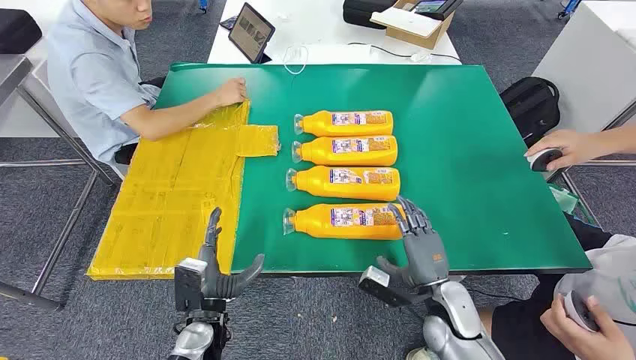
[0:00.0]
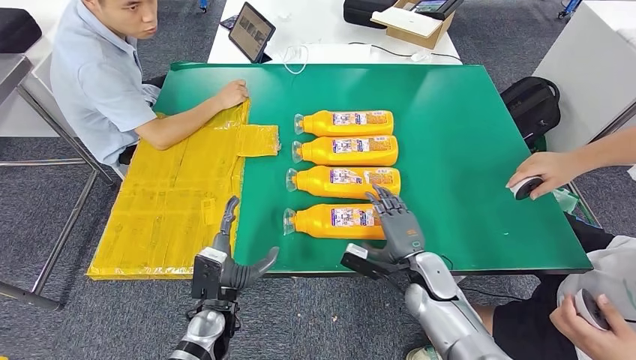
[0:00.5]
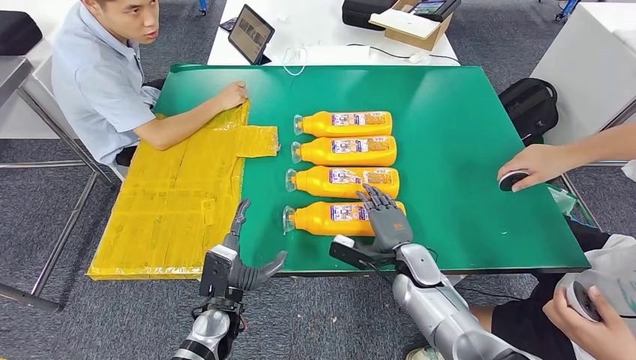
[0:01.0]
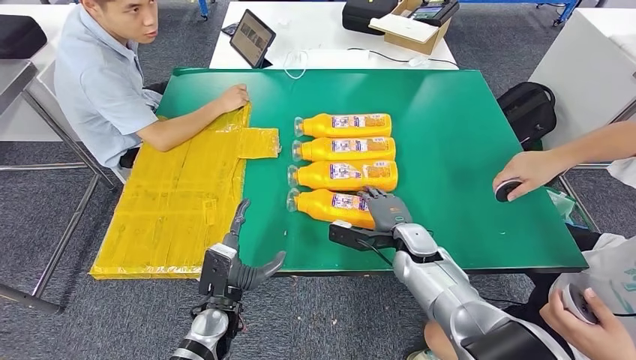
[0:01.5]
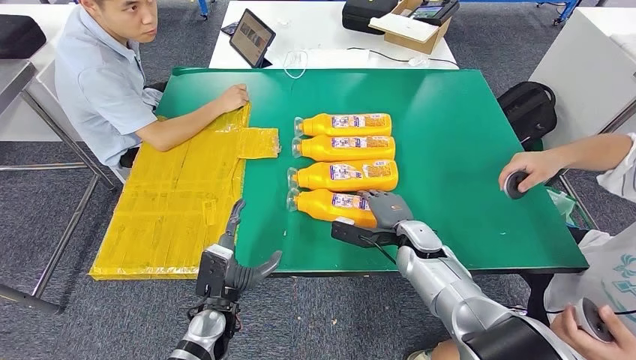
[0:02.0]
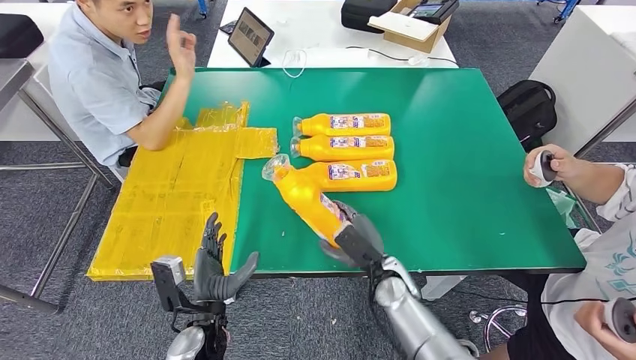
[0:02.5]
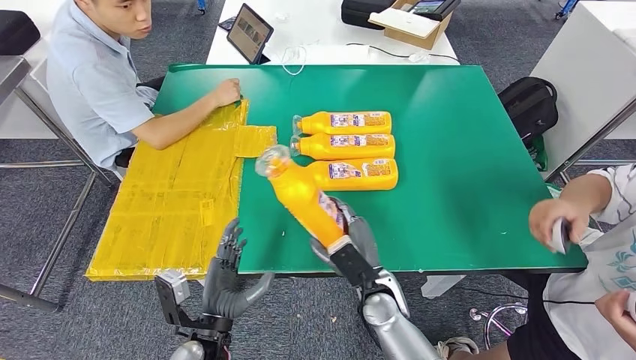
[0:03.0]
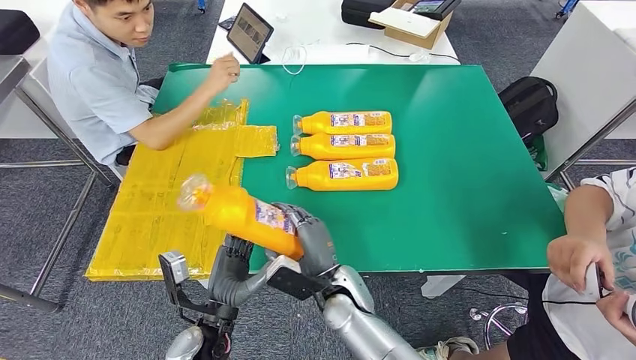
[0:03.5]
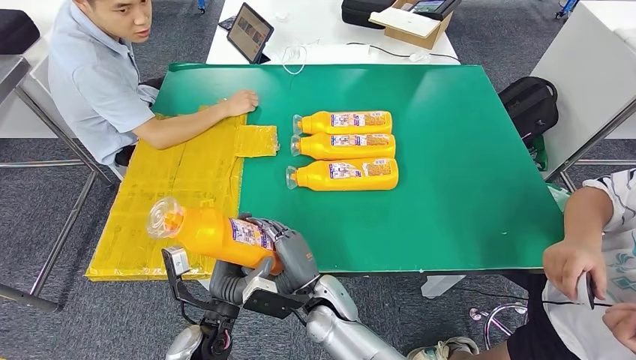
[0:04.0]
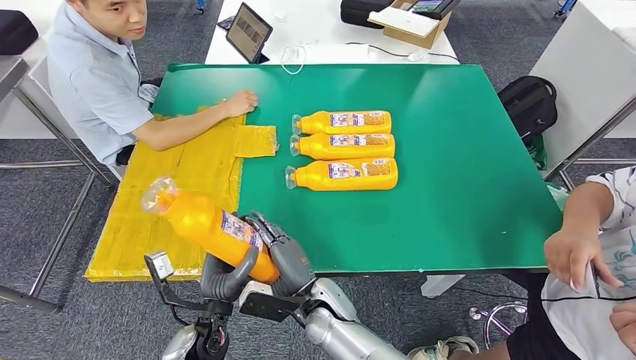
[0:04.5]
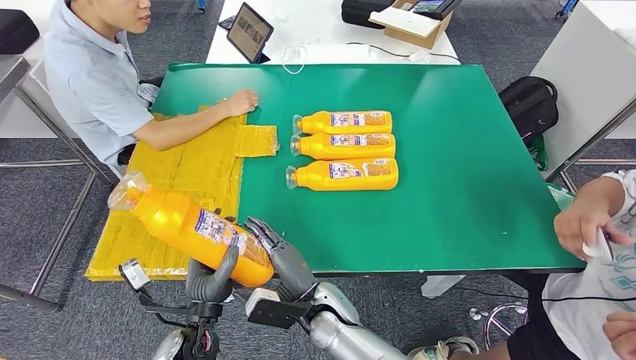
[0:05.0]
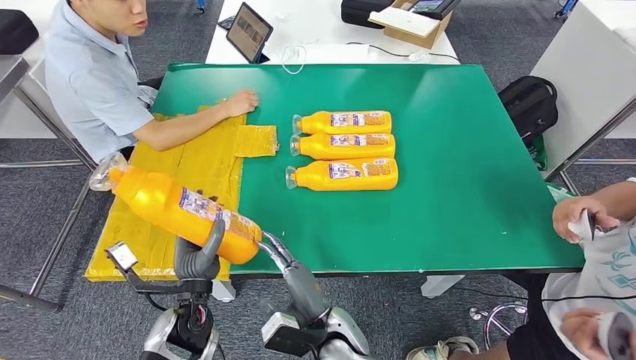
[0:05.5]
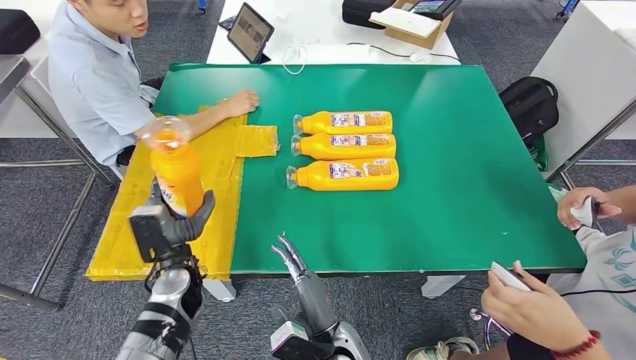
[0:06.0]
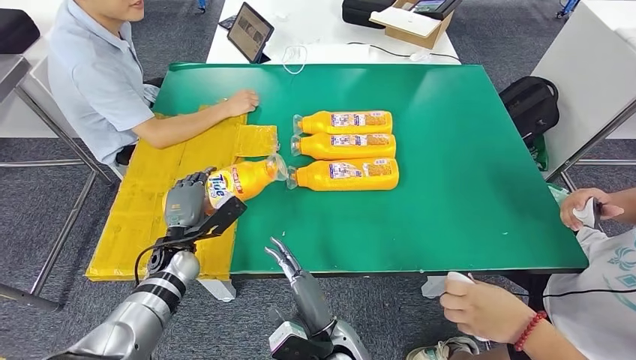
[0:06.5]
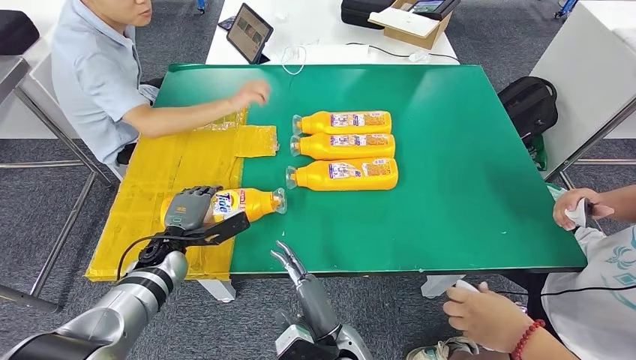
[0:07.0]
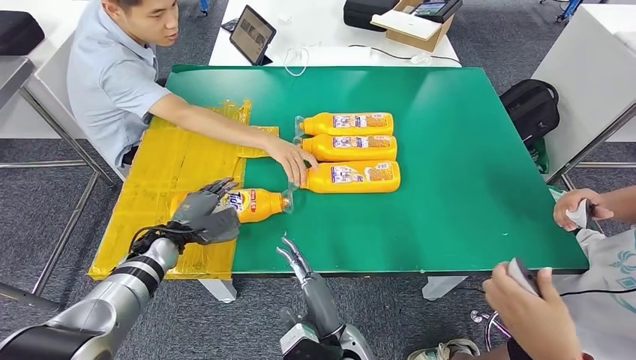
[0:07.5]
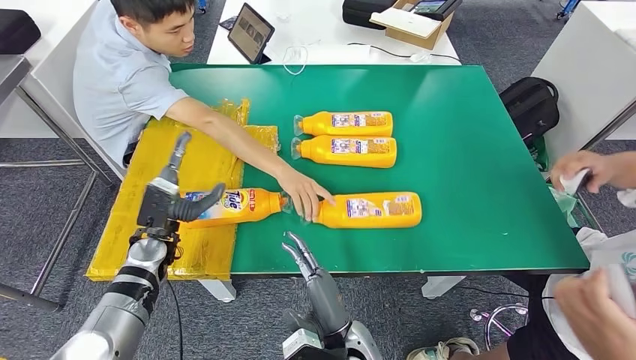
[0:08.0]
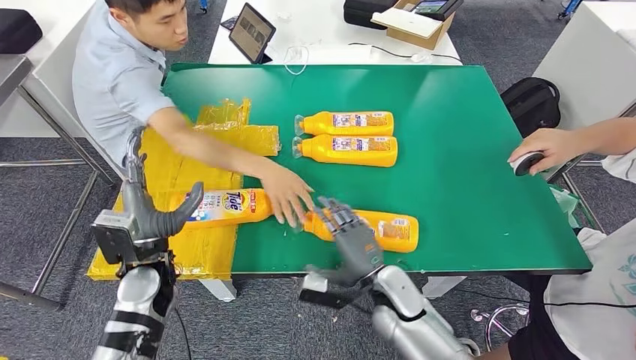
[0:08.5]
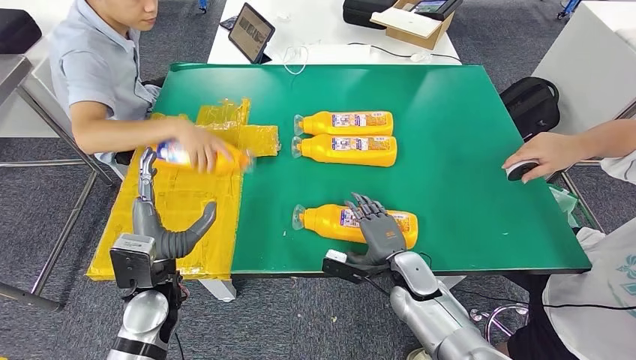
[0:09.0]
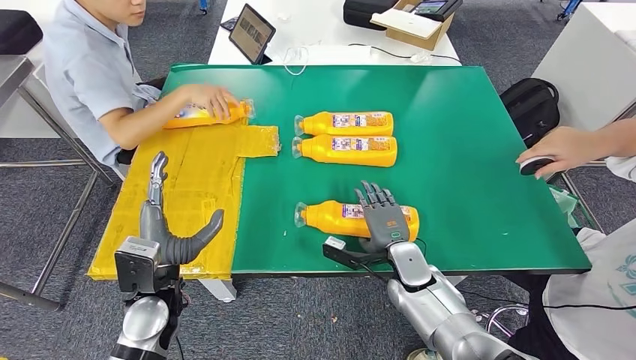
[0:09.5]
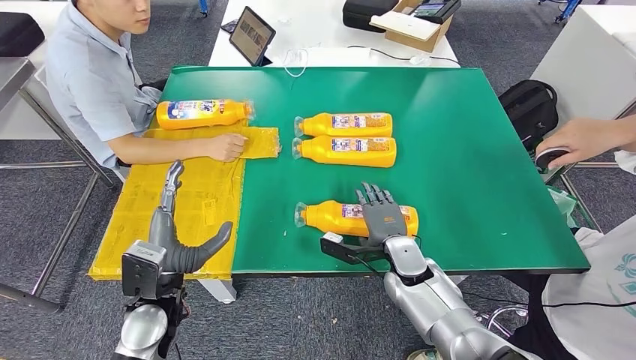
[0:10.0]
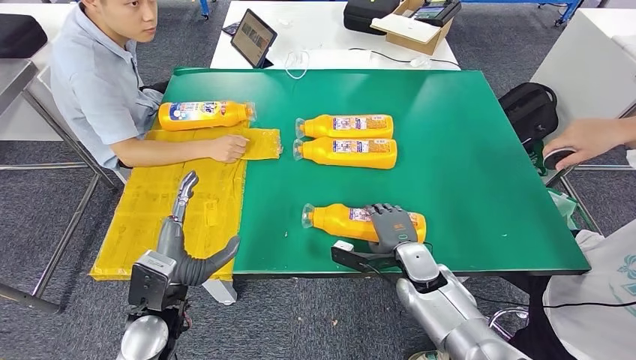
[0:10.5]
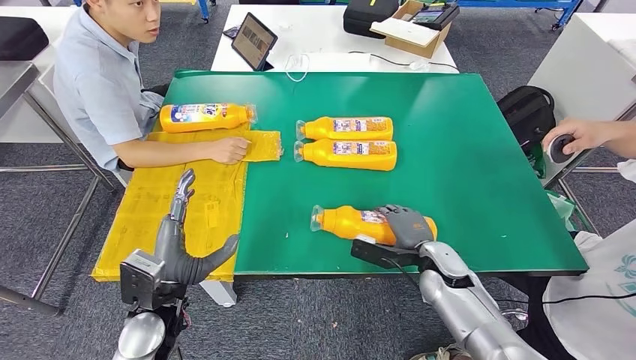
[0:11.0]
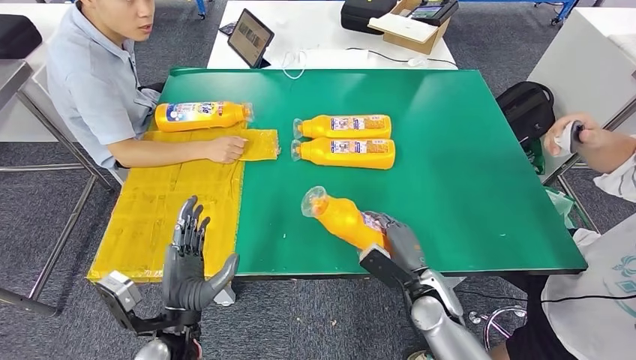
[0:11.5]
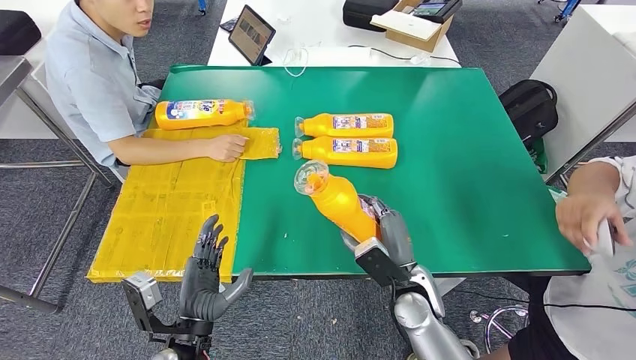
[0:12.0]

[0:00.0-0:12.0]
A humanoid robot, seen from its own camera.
Step, 0:00.0 to 0:04.0: Take the fast-moving consumer goods bottle from the table.
Step, 0:04.5 to 0:08.0: Flip the fast-moving consumer goods bottle to the front side.
0:04.0 to 0:06.0: The left hand travels forward and to the left by about 10 cm. Meanwhile the right hand heads backward, covering approximately 5 cm.
0:10.0 to 0:12.0: The right hand travels backward by approximately 5 cm, while the left hand moves backward and downward, approximately 10 cm.

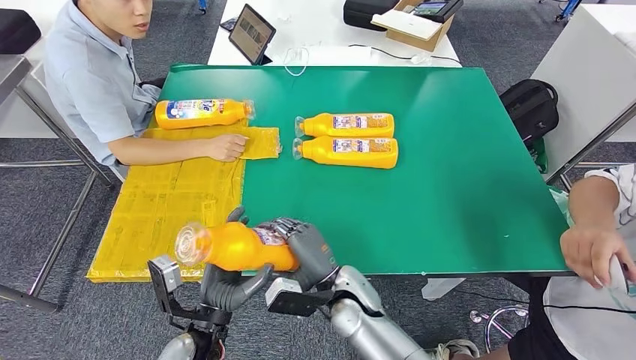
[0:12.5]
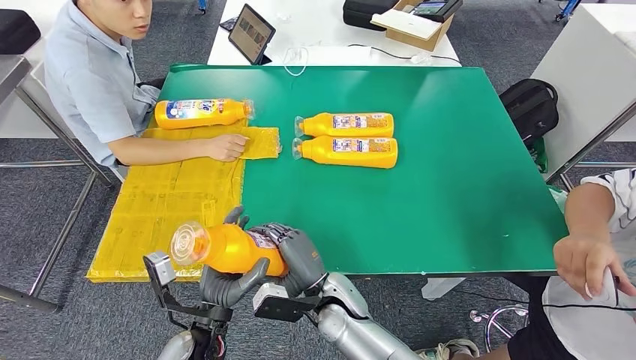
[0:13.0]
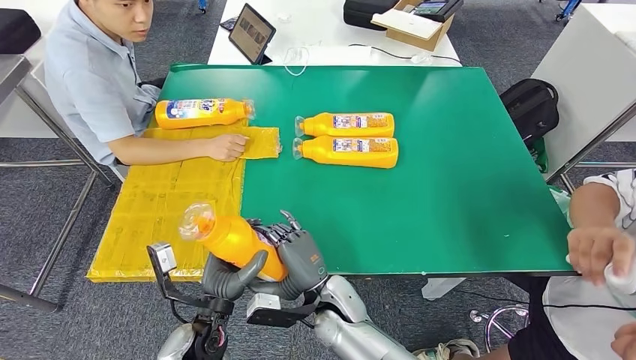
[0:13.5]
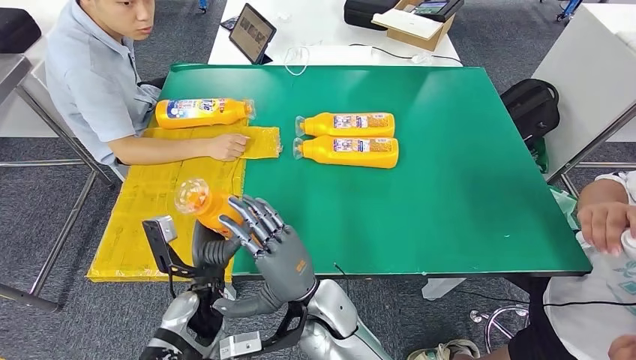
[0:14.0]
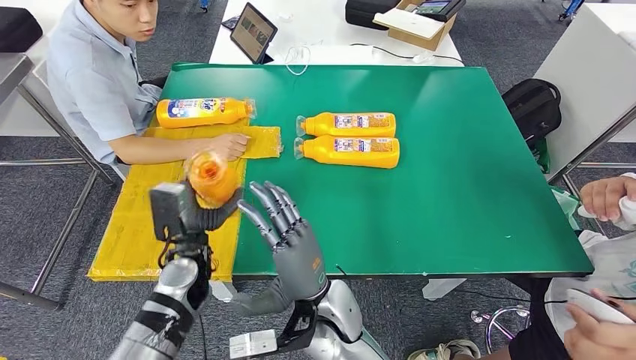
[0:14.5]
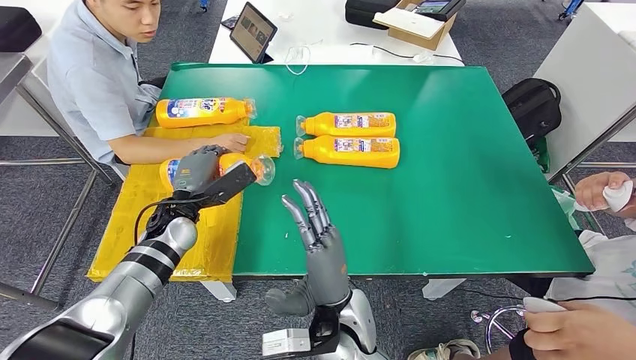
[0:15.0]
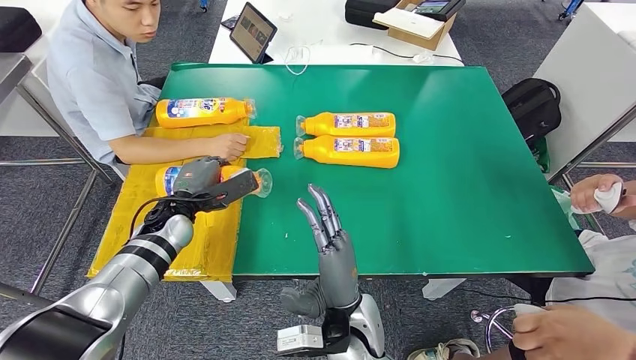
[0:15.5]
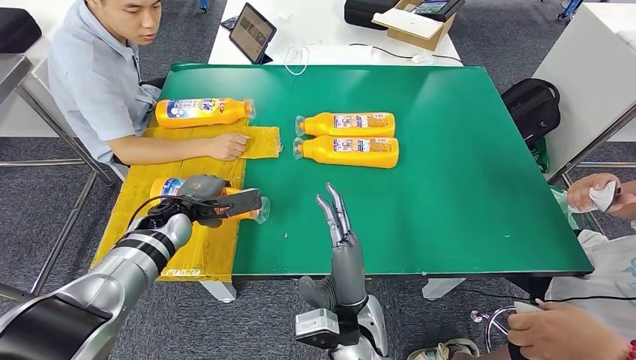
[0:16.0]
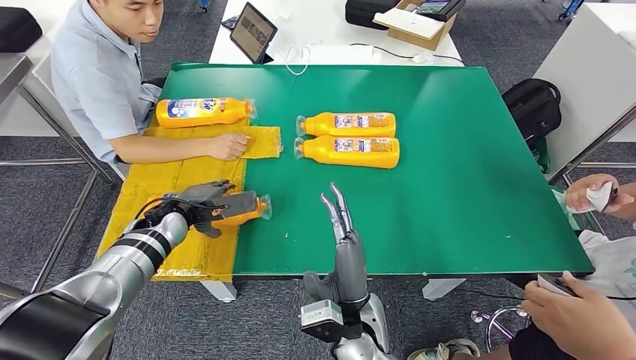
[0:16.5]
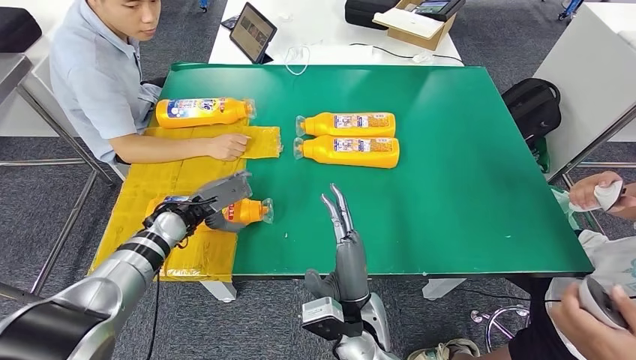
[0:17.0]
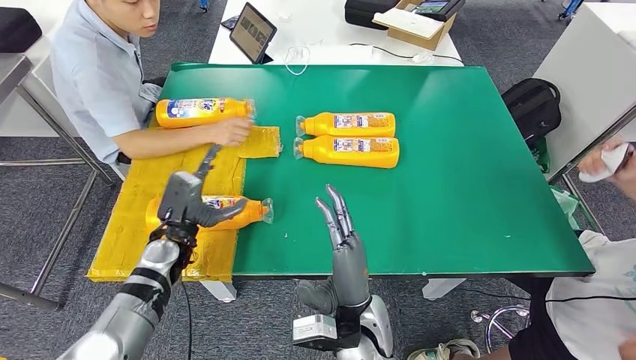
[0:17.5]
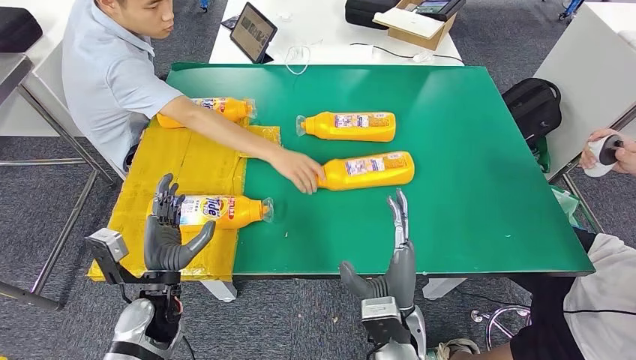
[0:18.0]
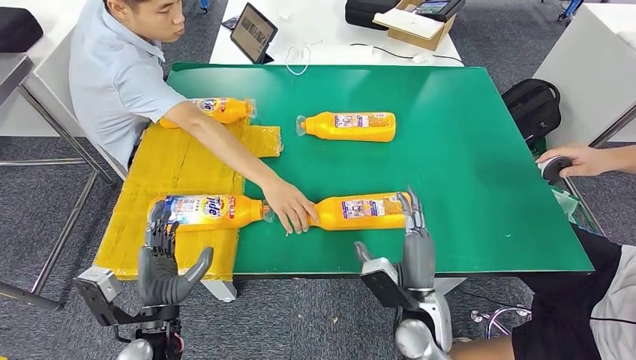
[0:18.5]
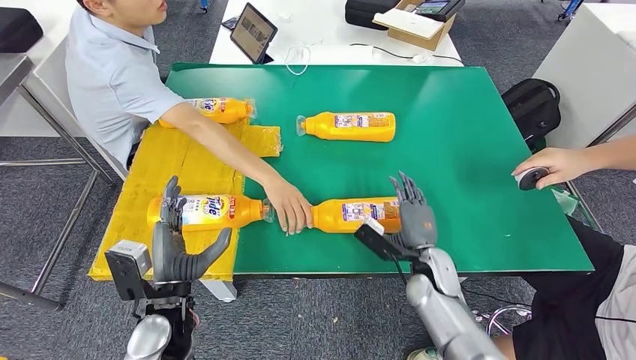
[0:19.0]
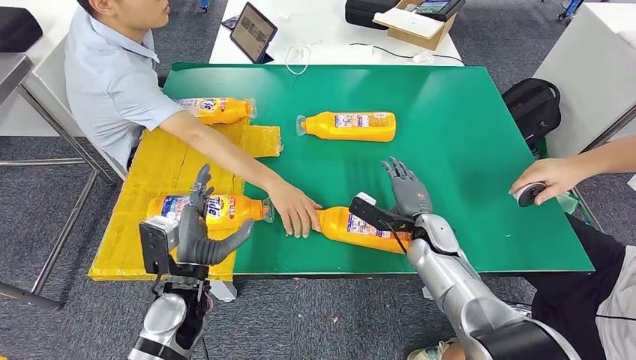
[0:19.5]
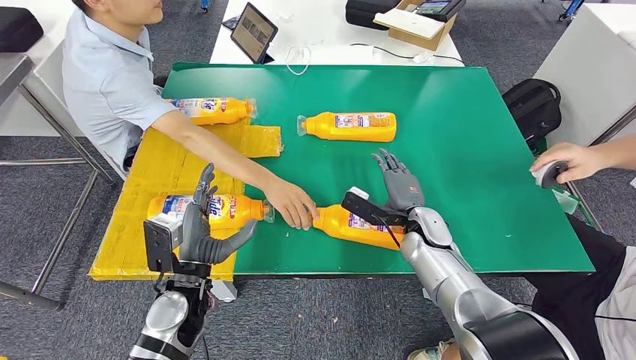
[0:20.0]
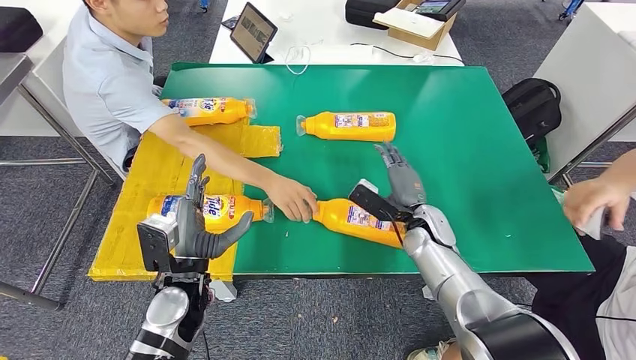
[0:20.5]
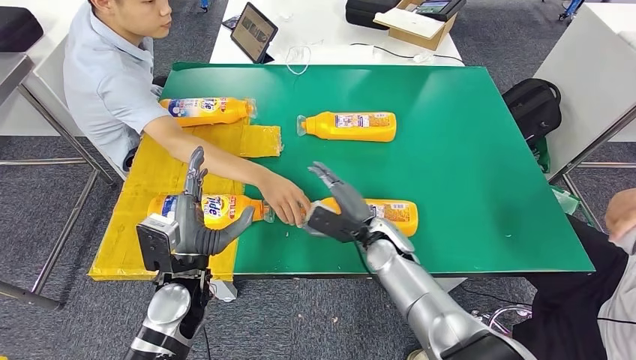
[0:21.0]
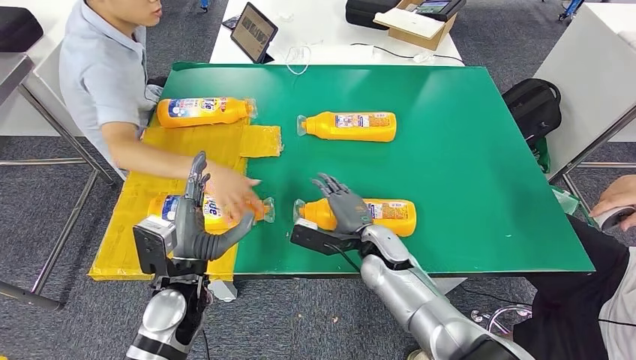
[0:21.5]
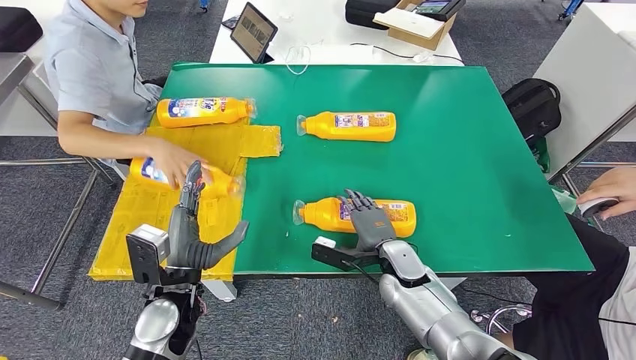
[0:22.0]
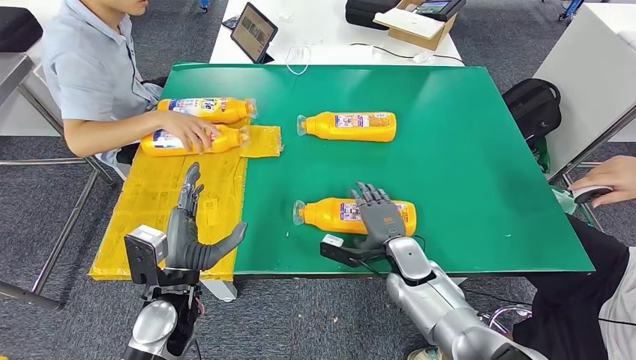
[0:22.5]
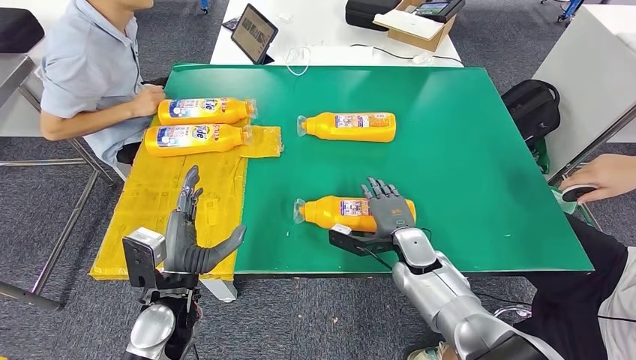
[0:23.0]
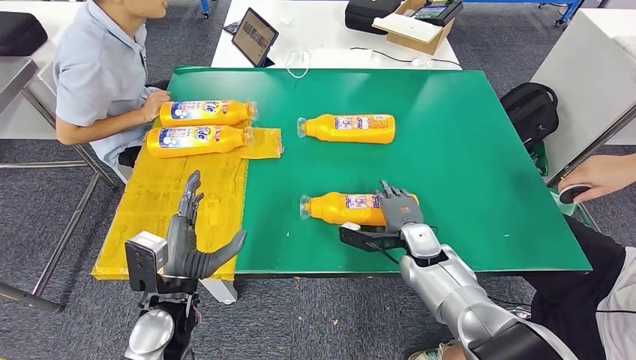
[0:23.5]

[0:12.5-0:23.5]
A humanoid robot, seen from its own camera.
Step, 0:13.0 to 0:18.0: Flip the fast-moving consumer goods bottle to the front side.
0:14.5 to 0:16.0: The left hand shifts some 10 cm forward and to the left. Meanwhile the right hand shifts by some 5 cm.
0:20.0 to 0:21.5: The right hand goes roughly 10 cm to the left.
